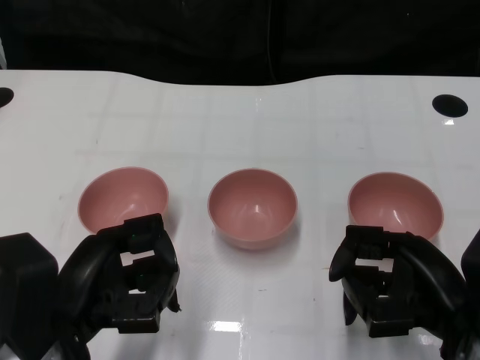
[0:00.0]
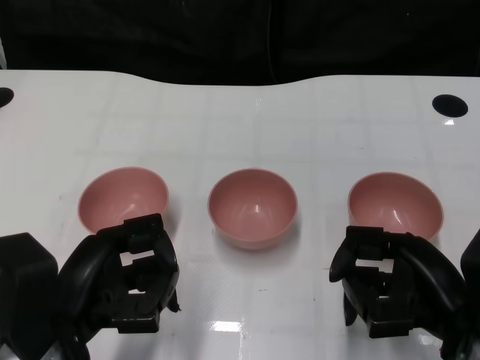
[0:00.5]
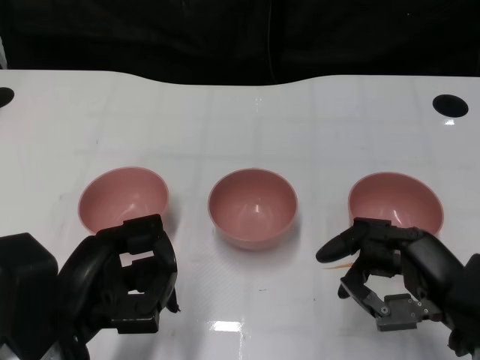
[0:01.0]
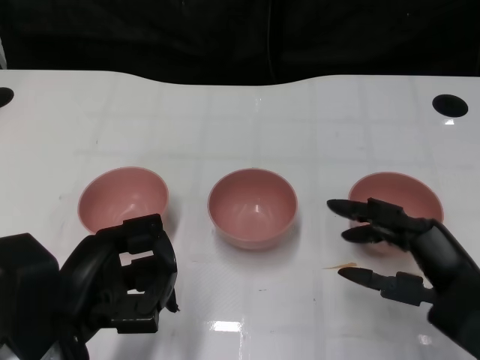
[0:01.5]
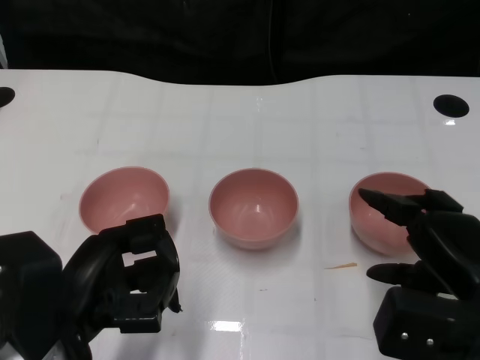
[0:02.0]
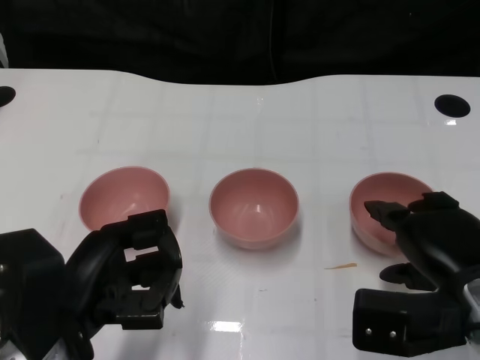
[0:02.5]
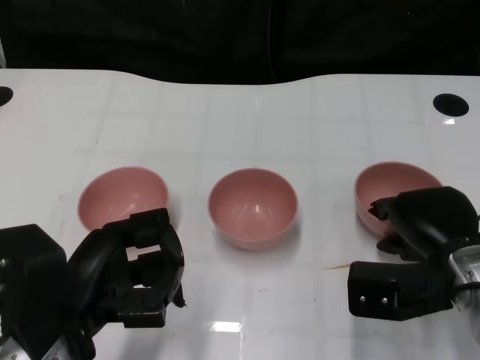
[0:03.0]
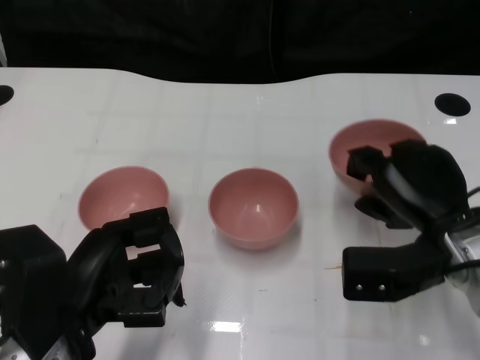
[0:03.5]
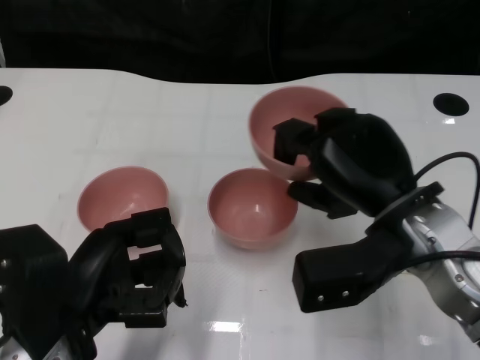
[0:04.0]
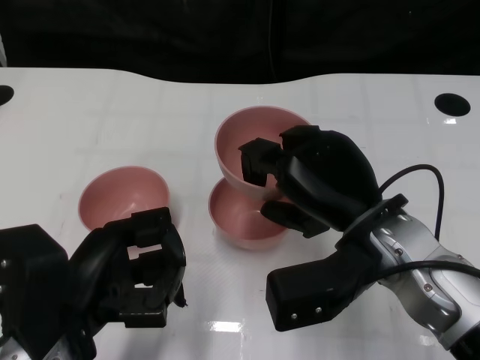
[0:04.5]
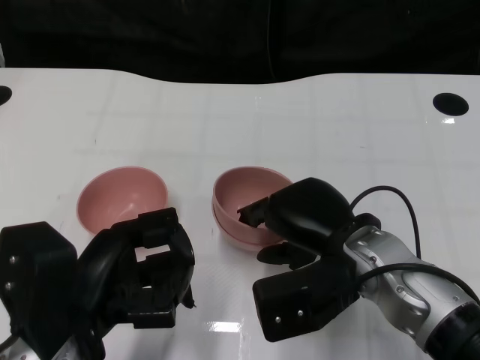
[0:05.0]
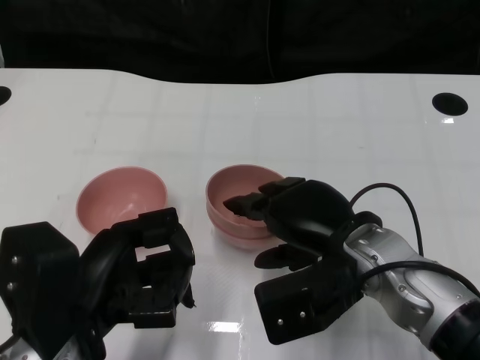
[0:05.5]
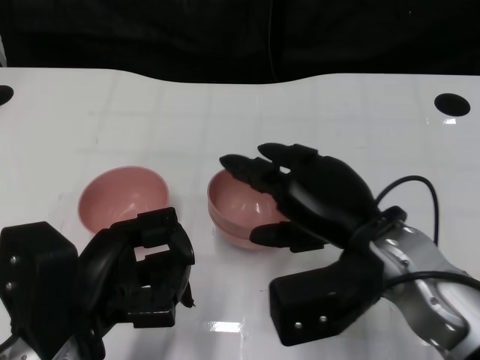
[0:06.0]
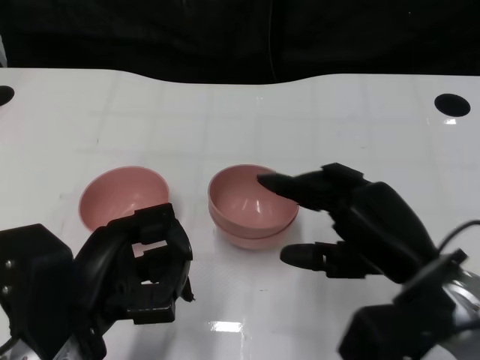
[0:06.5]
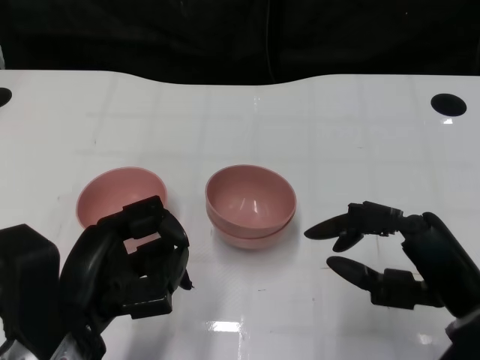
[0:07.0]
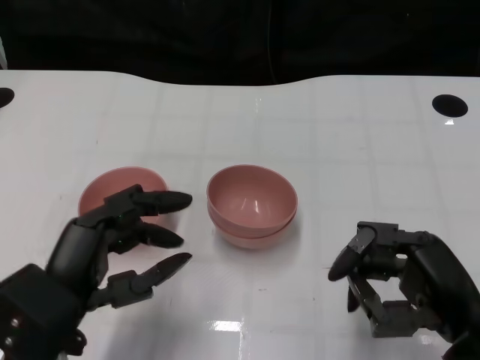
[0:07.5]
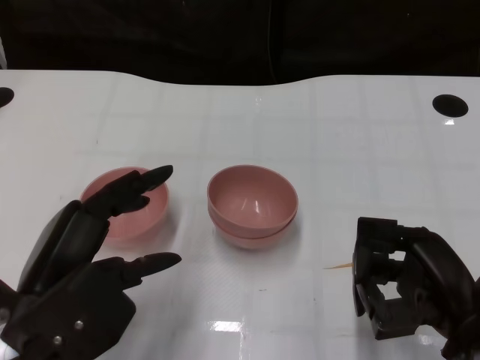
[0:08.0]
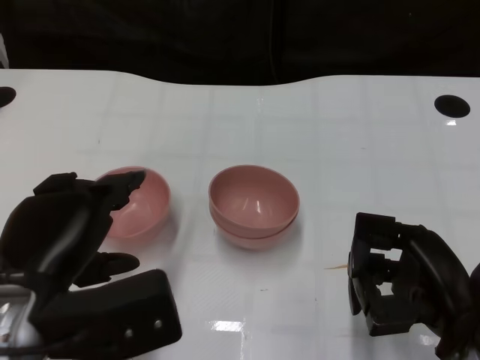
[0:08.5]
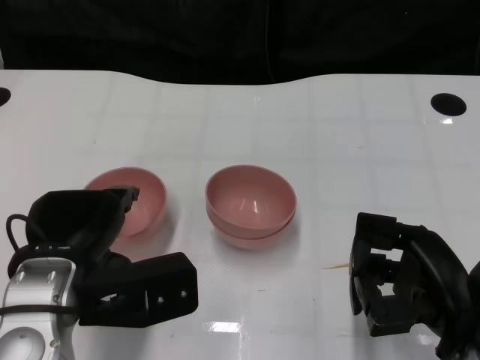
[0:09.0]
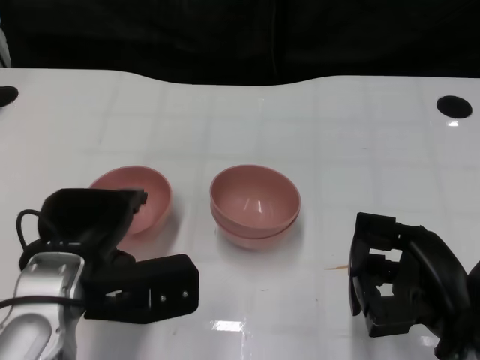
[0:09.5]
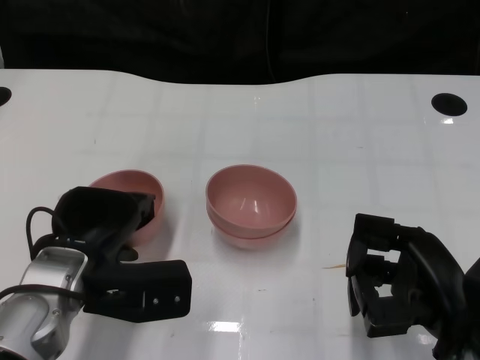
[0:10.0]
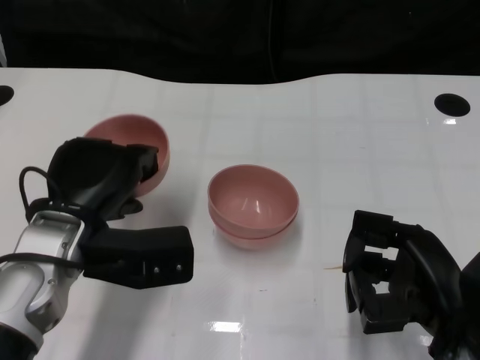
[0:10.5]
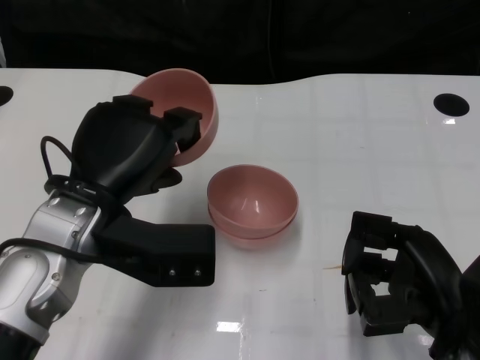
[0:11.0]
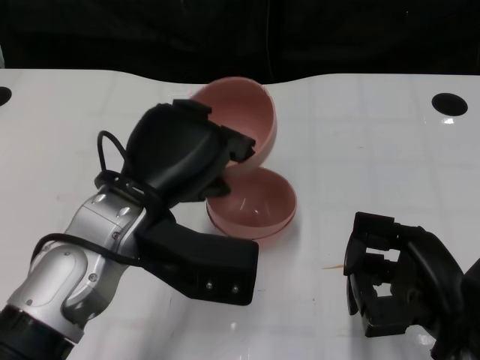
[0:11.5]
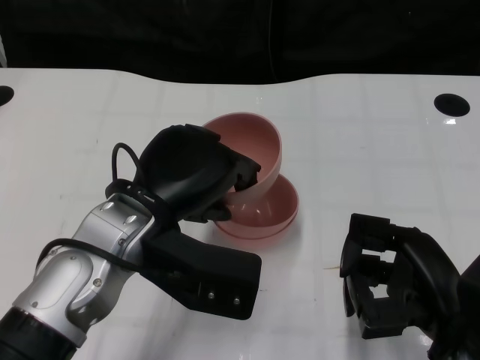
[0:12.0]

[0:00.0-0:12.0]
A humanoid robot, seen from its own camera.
Task of the whole recording: Pick up the bowl on one side of the table and place it on top of the middle bowl, then pick up the bowl on the other side of the table and place it on top of the middle bowls.
Step, 1.0 to 3.0 s: Grasp the bowl on the right with the right gripper.
Step, 3.5 to 6.0 s: Place the bowl on the right onto the bowl in the middle with right gripper.
Step, 6.5 to 10.0 s: Grasp the bowl on the left with the left gripper.
2.0 to 4.0 s: The right hand is displaced to the left and forward by some 10 cm.
6.0 to 8.0 s: The right hand moves to the right and backward, roughly 10 cm.
8.0 to 10.0 s: The left hand heads forward, covering about 10 cm.
10.0 to 12.0 s: The left hand moves upward and to the right, roughly 10 cm.

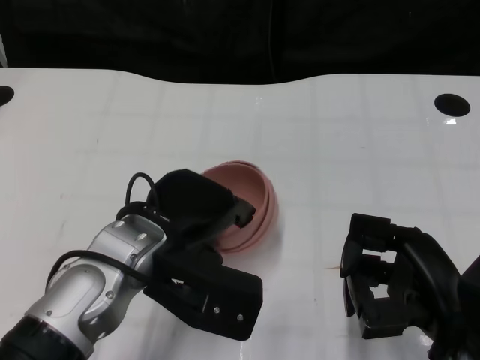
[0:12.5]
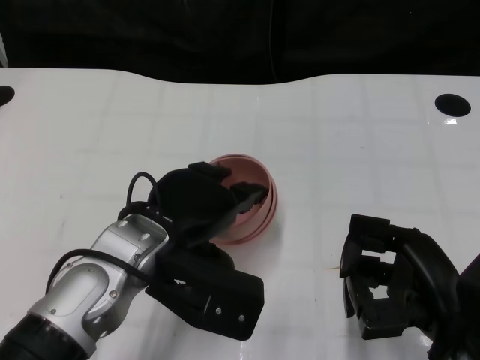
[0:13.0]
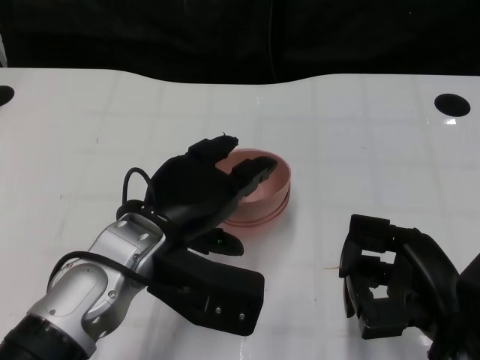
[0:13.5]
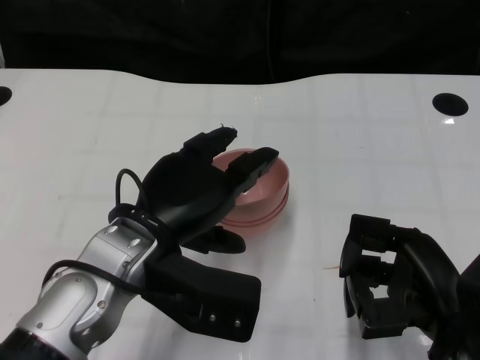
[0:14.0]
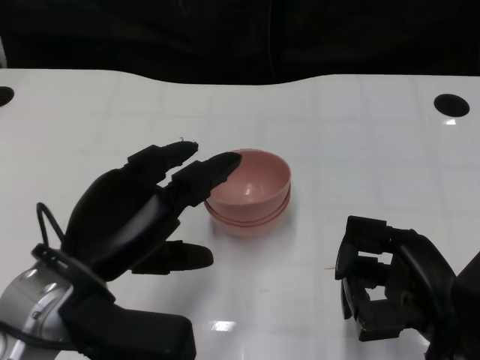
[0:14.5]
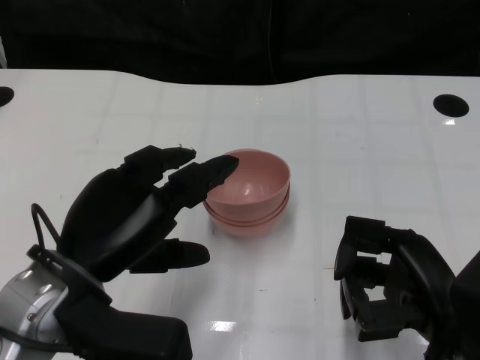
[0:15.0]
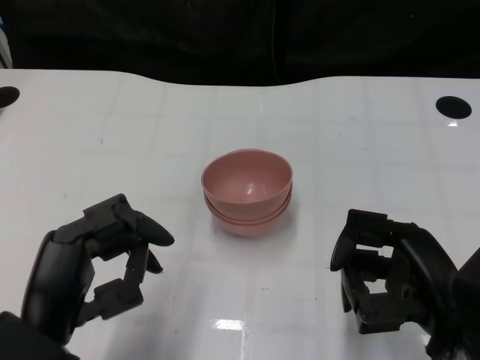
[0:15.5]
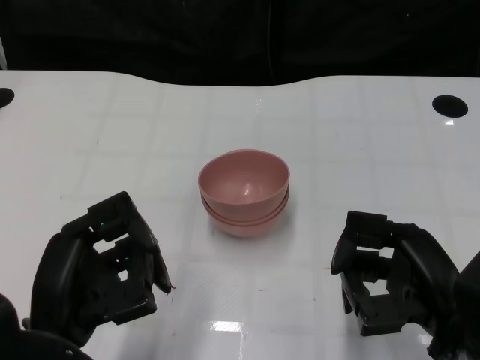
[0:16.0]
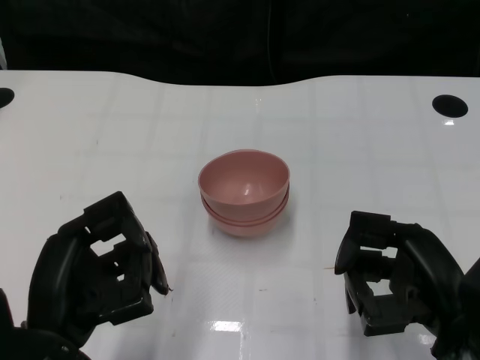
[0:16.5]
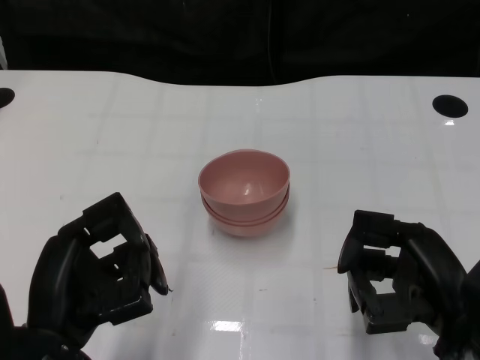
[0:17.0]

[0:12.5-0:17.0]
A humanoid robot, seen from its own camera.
Task of the whole recording: Pick up the bowl on one side of the table and place it on top of the middle bowl, then pick up the bowl on the other side of the table and place it on top of the middle bowls.
12.5 to 14.5 s: The left hand goes about 5 cm to the left.
14.5 to 17.0 s: The left hand ends up some 5 cm from where it was.

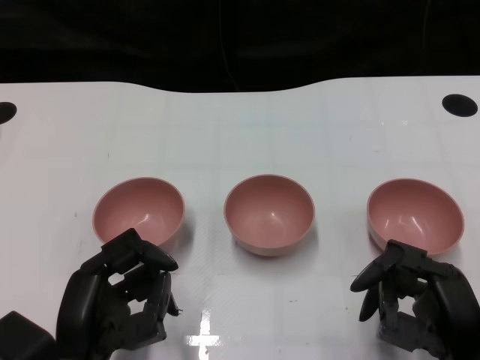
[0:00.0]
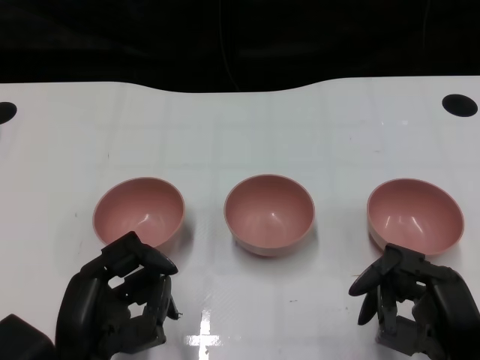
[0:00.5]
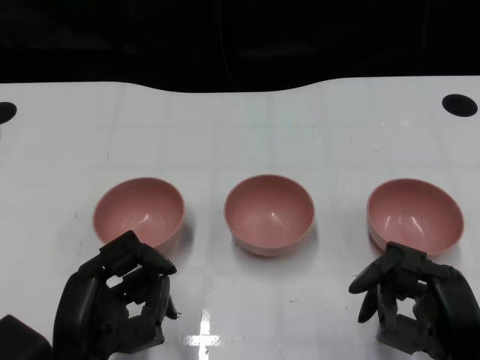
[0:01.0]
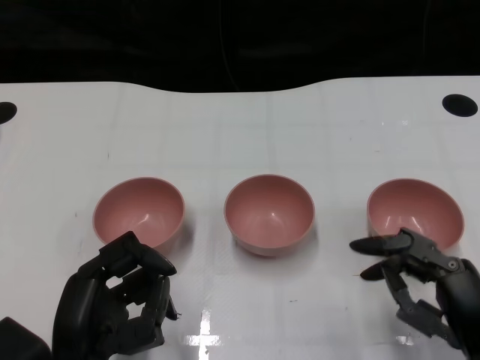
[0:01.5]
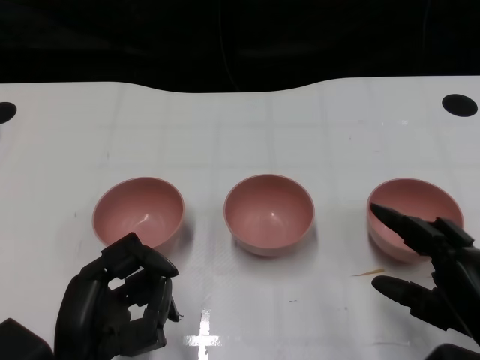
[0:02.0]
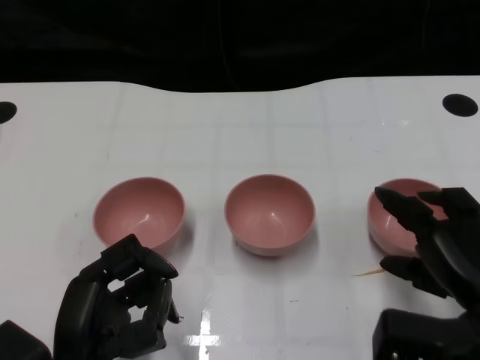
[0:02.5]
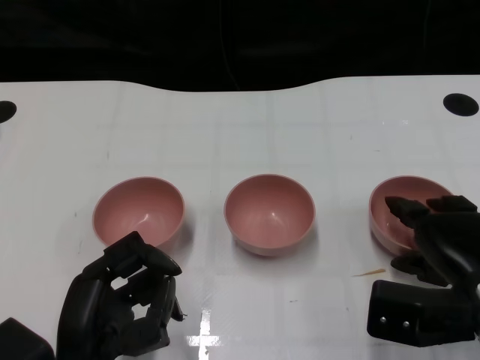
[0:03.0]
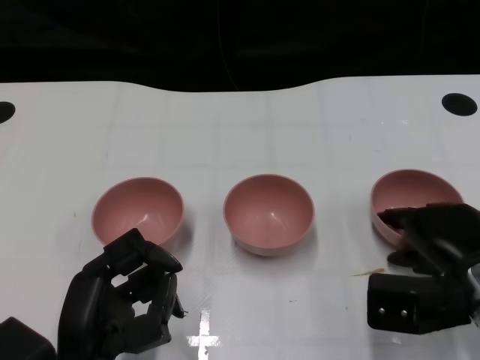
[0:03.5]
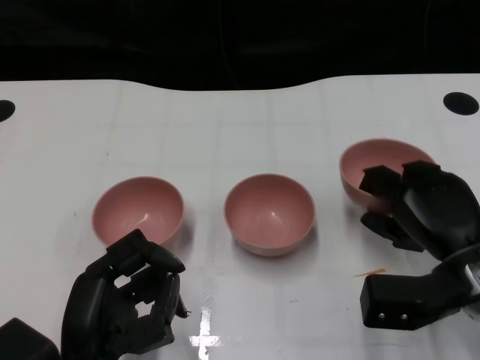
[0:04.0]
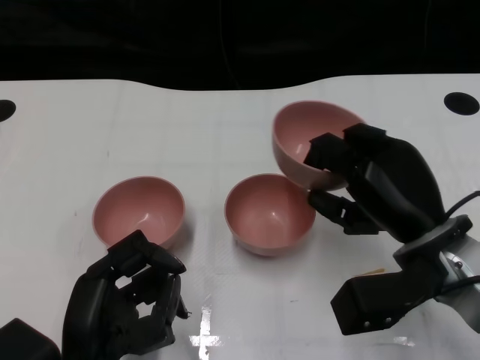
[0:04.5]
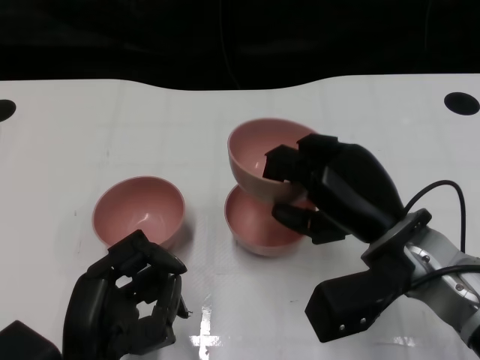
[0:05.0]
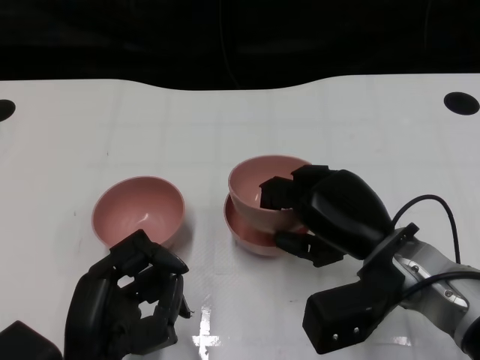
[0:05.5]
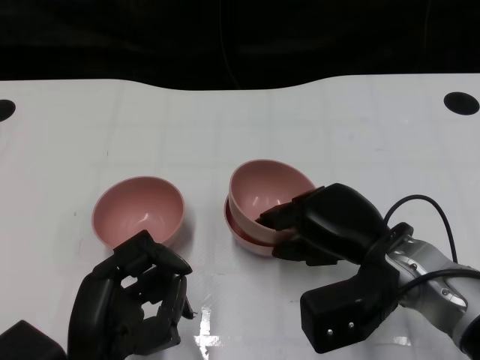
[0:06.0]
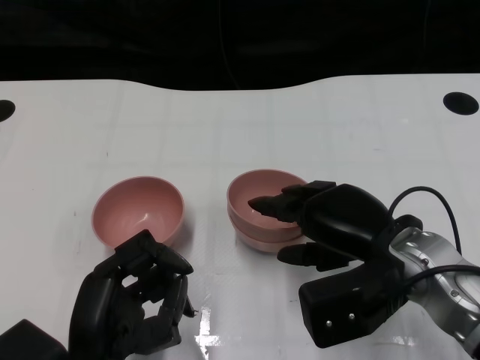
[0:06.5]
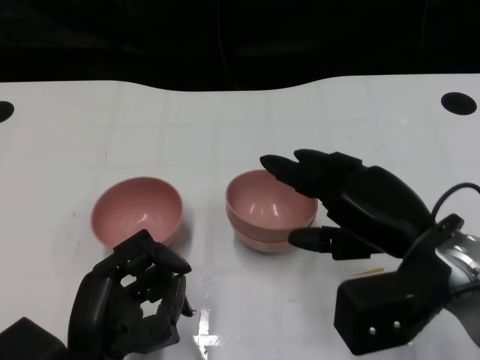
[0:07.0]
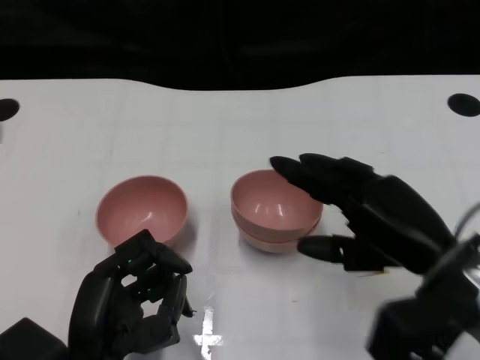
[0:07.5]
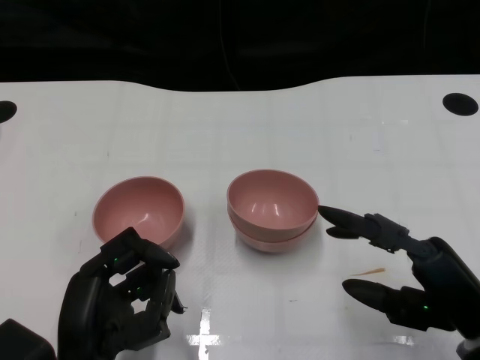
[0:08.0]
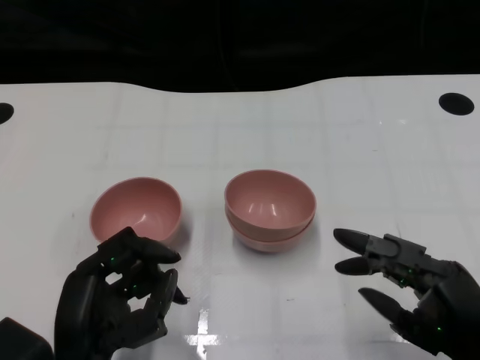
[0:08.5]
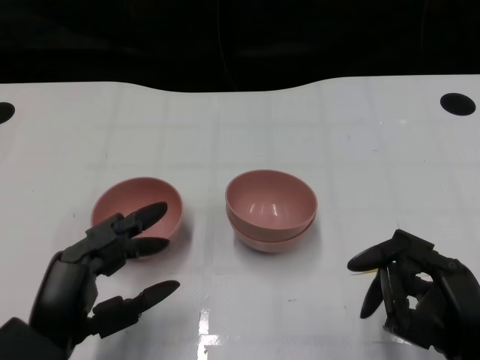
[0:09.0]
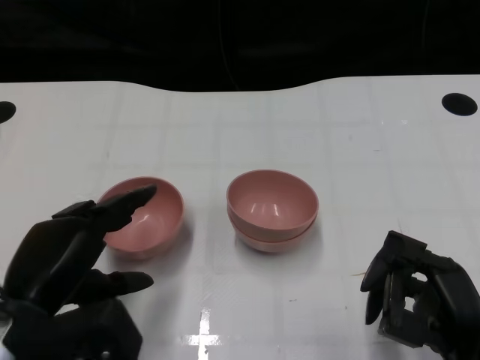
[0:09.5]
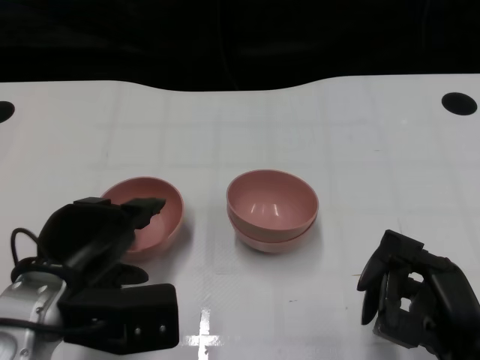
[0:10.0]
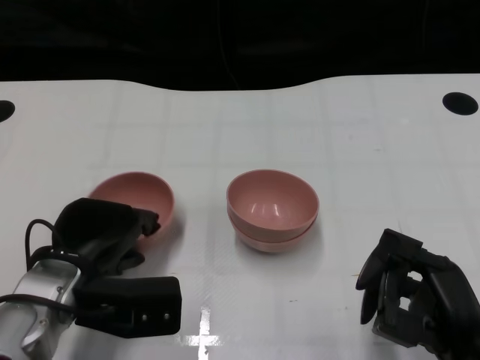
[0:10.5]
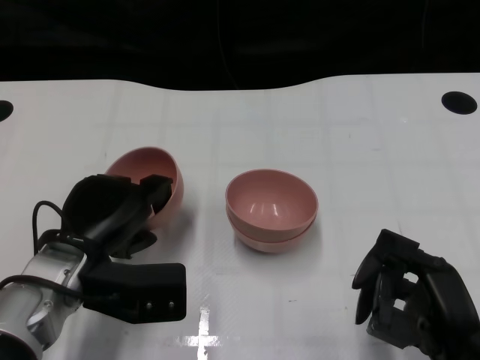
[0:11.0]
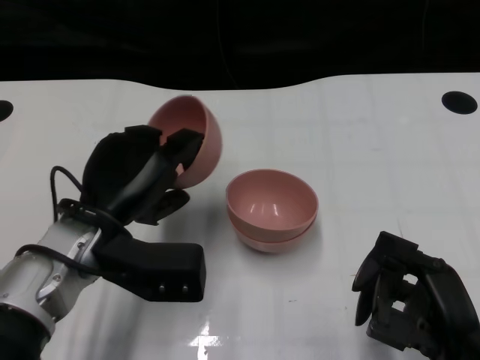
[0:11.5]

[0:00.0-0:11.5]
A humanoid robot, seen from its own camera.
Task of the whole recording: Pick up the bowl on one side of the table and place it on top of the middle bowl, then pick up the bowl on the other side of the table and place it on top of the middle bowls.
Step, 1.5 to 3.5 s: Grasp the bowl on the right with the right gripper.
Step, 4.0 to 7.5 s: Place the bowl on the right onto the bowl in the middle with right gripper.
Step, 8.0 to 10.5 s: Grasp the bowl on the left with the left gripper.
2.0 to 4.0 s: The right hand heads forward, covering roughly 10 cm.
4.0 to 6.0 s: The right hand moves to the left, about 5 cm.
6.0 to 7.5 s: The right hand ends up some 5 cm from where it was.
7.5 to 9.5 s: The left hand heads to the left and upward, covering approximately 5 cm, while the right hand moves backward and downward, roughly 10 cm.
9.5 to 11.5 s: The left hand shifts some 10 cm forward and to the right.
